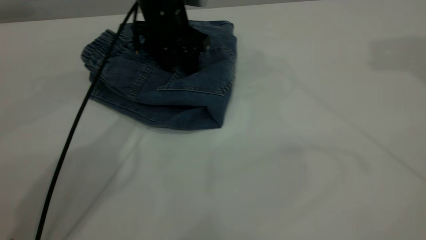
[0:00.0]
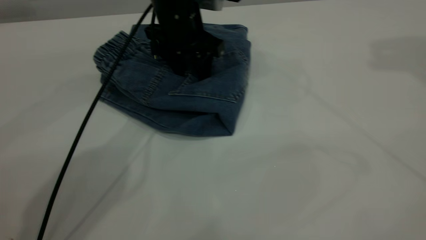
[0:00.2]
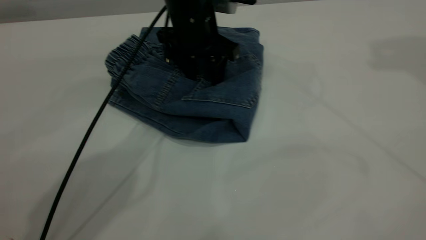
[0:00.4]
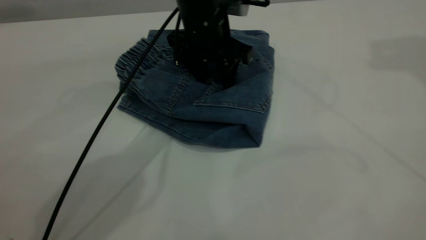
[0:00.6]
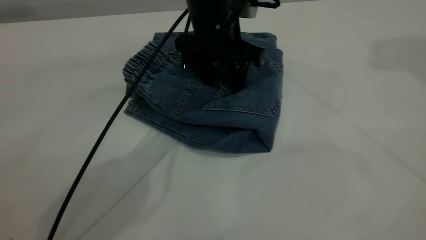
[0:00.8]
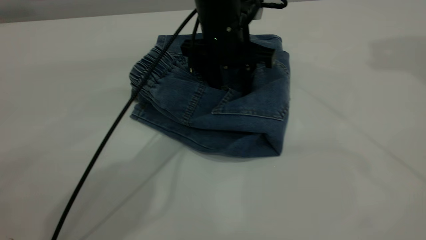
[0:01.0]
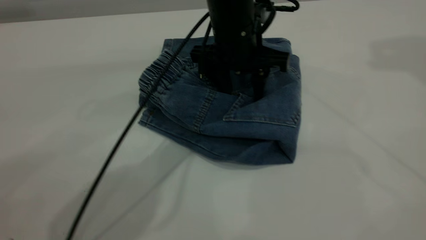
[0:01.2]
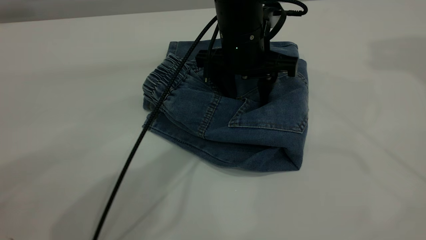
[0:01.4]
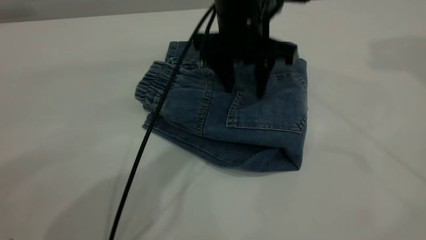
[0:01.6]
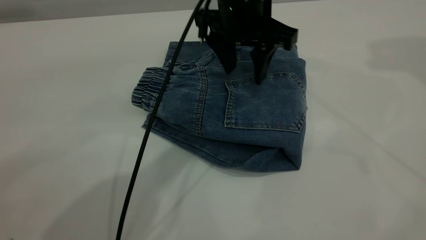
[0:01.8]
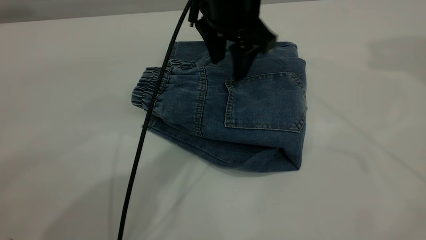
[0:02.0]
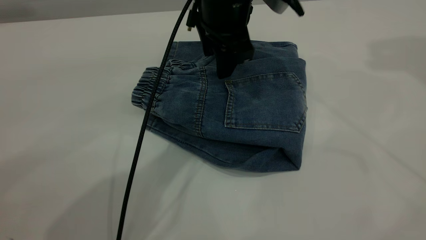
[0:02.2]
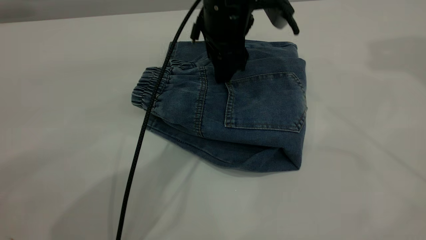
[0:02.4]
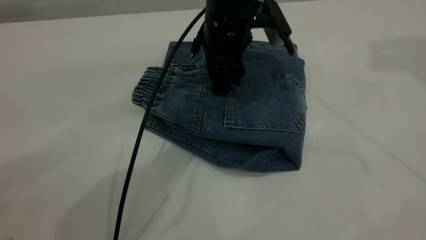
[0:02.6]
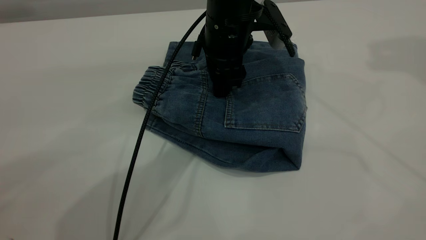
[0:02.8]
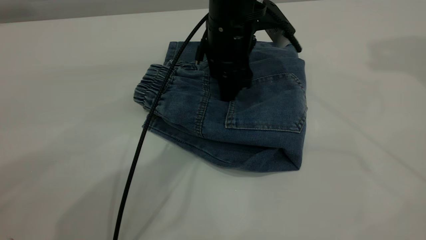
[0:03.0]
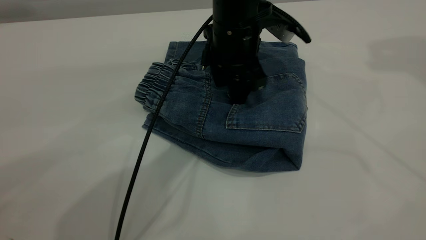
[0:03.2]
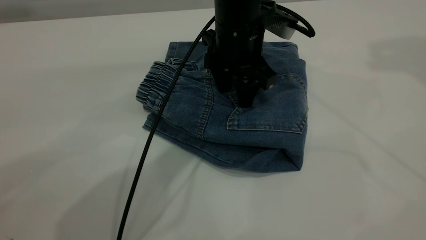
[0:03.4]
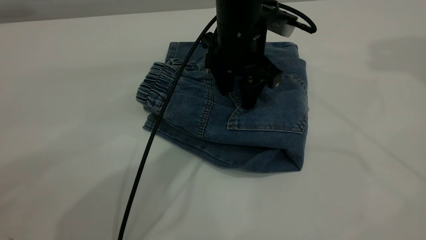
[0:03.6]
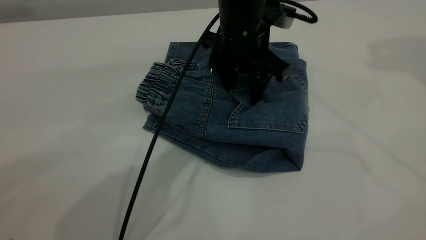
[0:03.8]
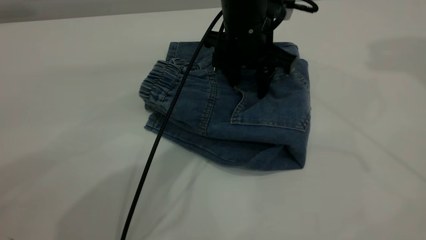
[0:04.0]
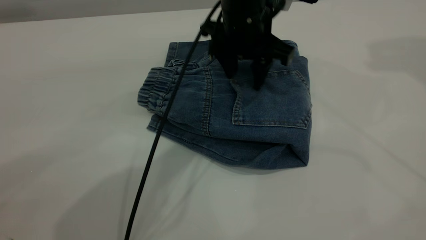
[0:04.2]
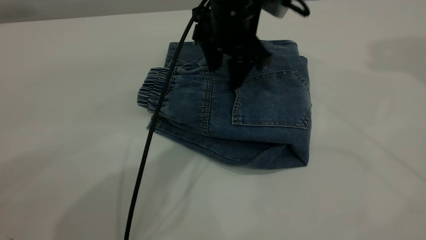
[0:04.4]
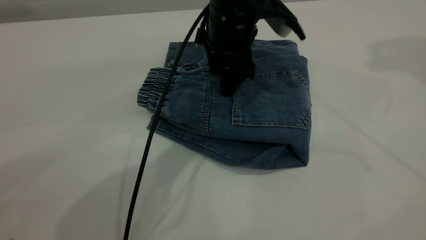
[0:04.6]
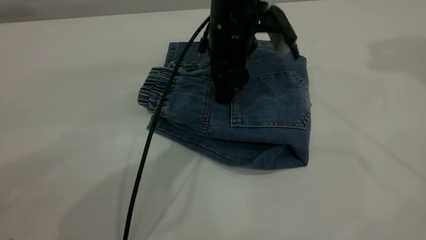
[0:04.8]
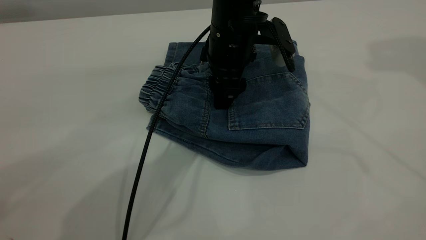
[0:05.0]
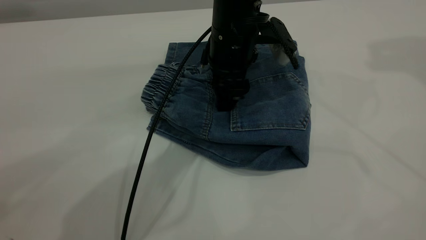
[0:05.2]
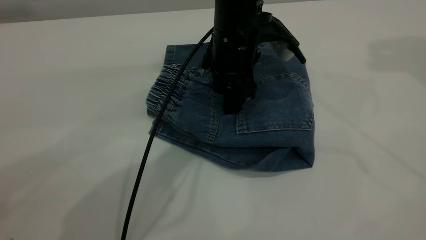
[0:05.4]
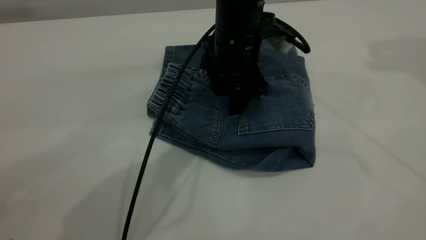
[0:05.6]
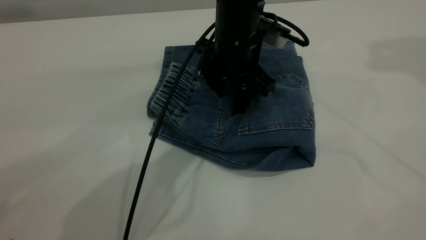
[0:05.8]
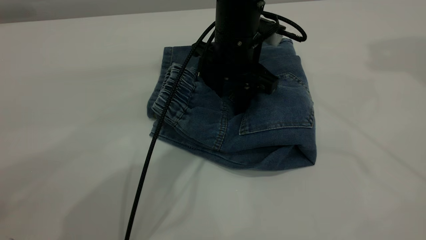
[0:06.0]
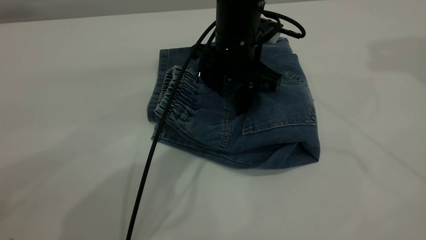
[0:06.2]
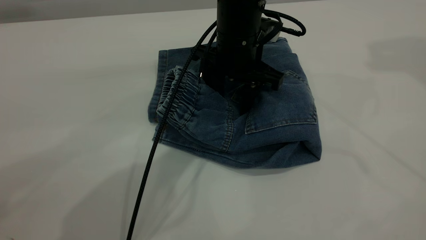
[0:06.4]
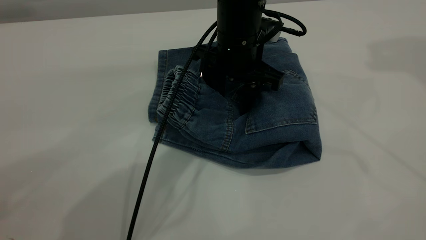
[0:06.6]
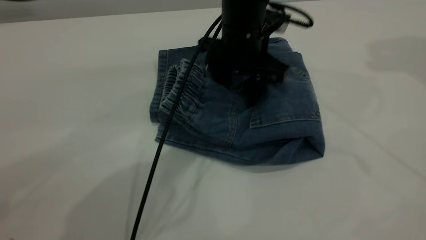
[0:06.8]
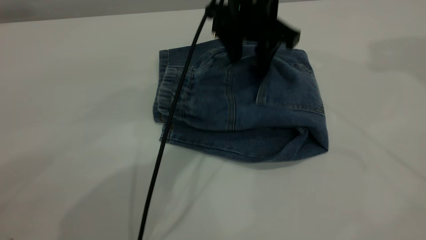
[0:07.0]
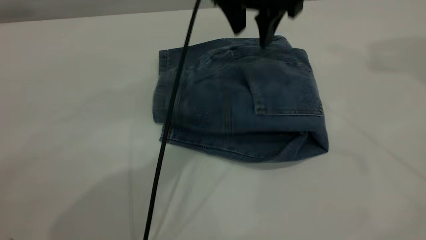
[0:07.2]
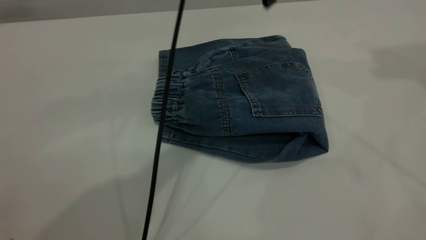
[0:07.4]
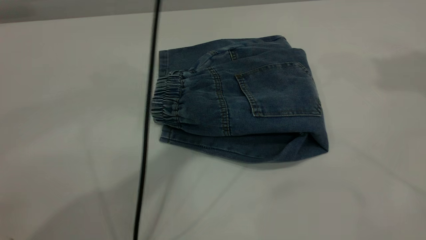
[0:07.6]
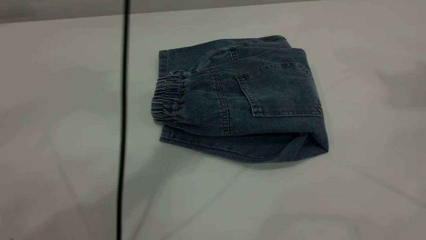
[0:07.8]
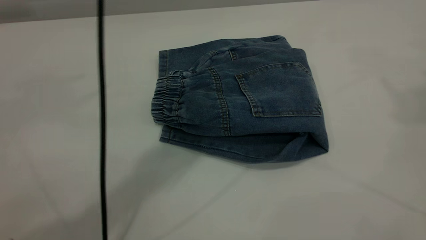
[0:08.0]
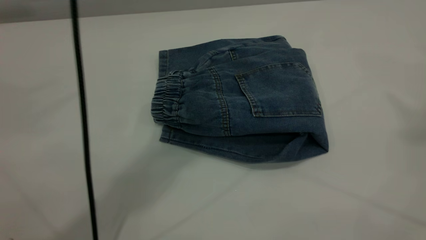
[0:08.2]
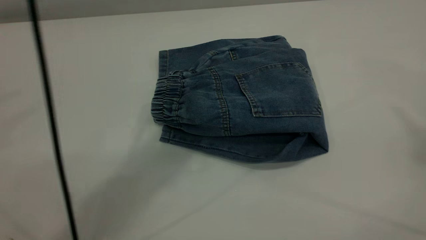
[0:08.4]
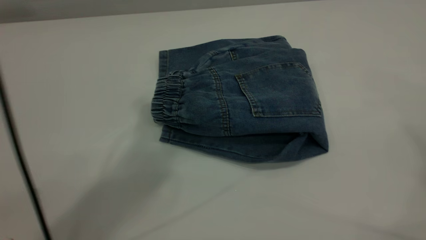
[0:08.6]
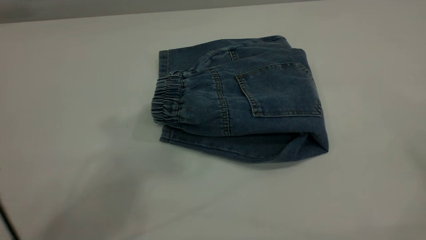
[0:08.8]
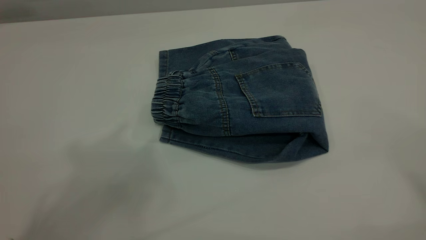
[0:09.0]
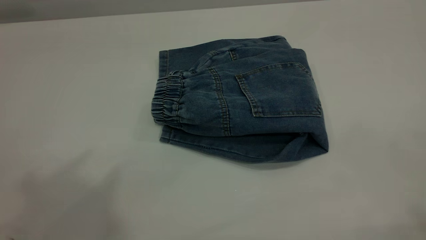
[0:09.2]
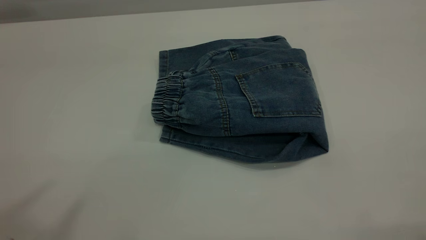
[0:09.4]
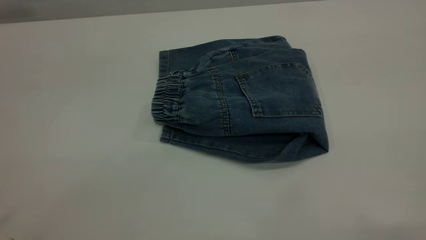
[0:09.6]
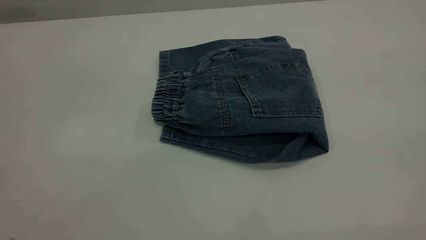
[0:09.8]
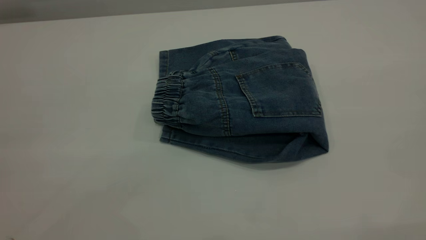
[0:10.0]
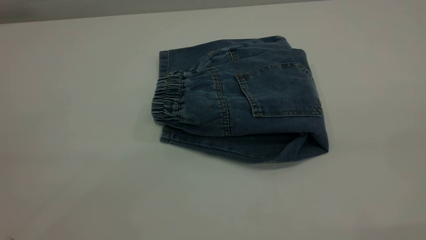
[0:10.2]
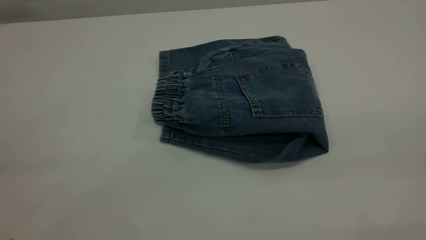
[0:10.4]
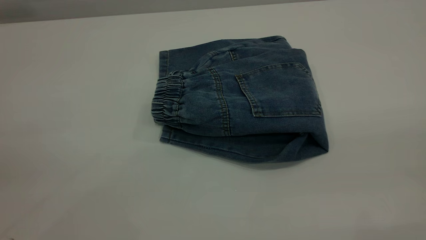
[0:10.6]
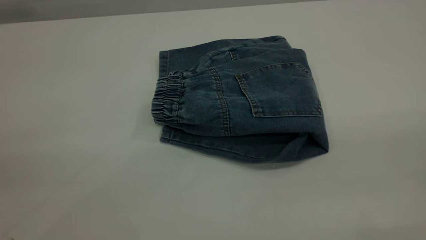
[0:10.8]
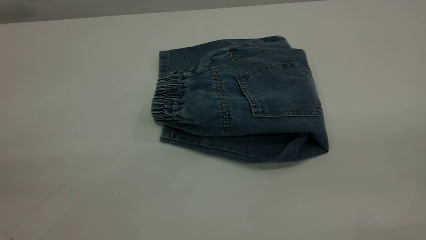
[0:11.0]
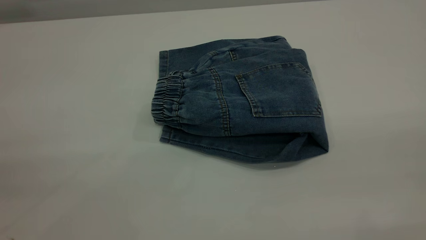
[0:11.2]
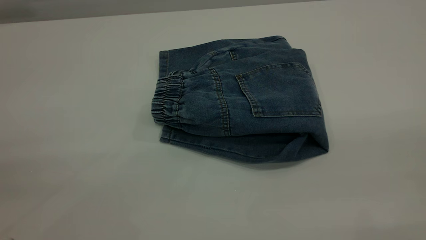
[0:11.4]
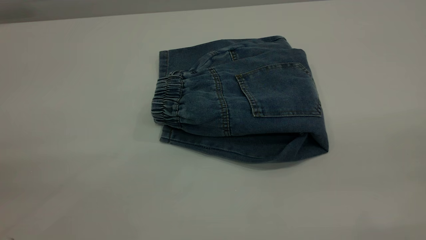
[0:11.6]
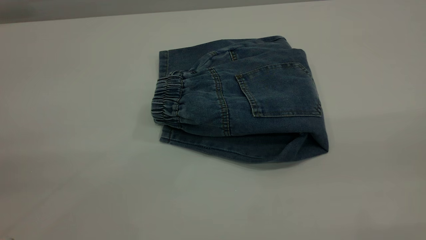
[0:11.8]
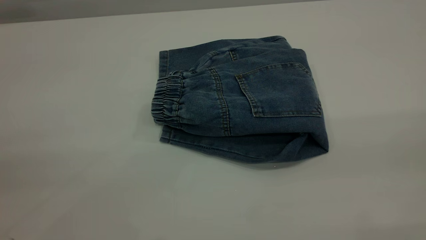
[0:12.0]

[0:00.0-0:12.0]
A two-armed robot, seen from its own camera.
0:00.0 to 0:01.6: The left gripper travels to the right and backward by approximately 15 cm.
0:06.0 to 0:07.6: The left gripper goes some 25 cm upward, while the right gripper goes about 10 cm backward and upward.
0:07.6 to 0:09.0: The left gripper is displaced upward, backward and to the left by about 35 cm, while the right gripper is displaced backward by roughly 20 cm.

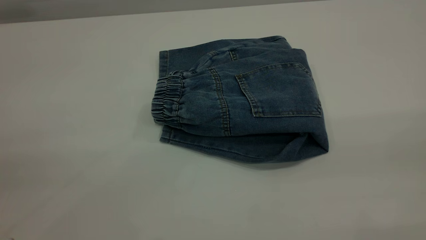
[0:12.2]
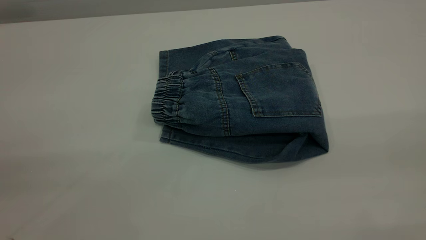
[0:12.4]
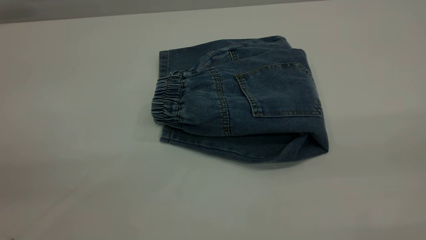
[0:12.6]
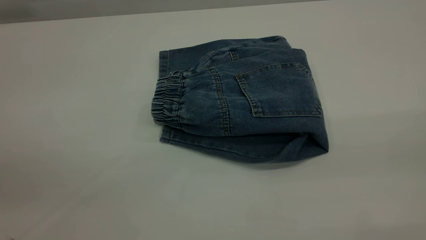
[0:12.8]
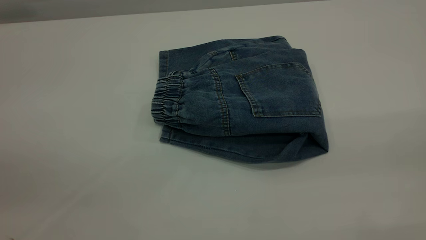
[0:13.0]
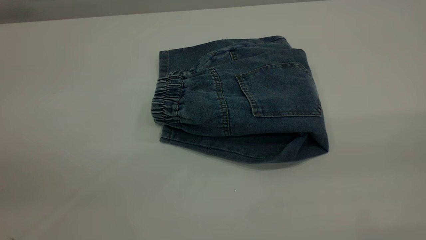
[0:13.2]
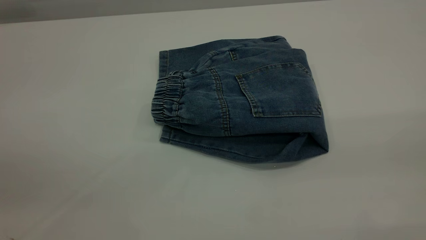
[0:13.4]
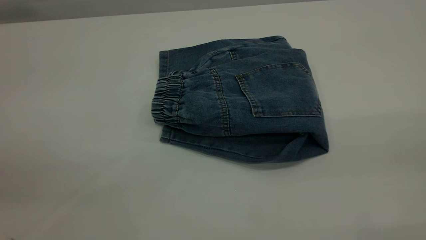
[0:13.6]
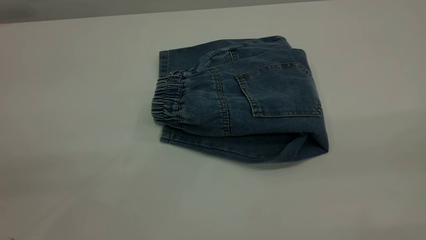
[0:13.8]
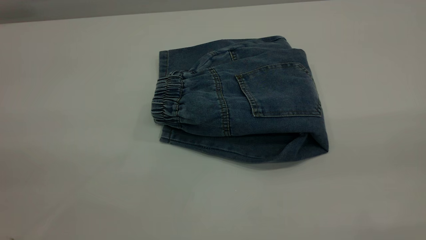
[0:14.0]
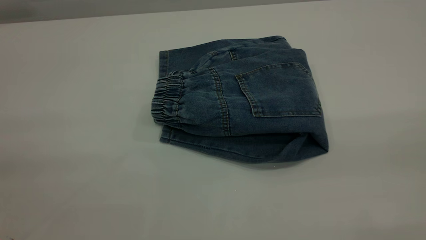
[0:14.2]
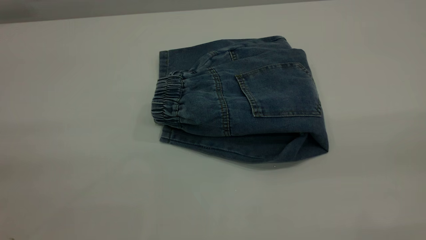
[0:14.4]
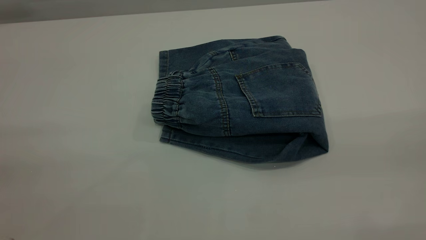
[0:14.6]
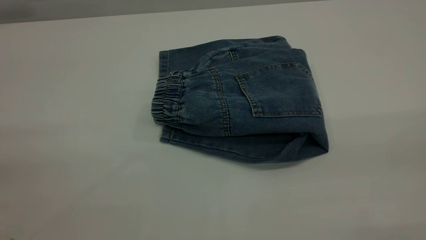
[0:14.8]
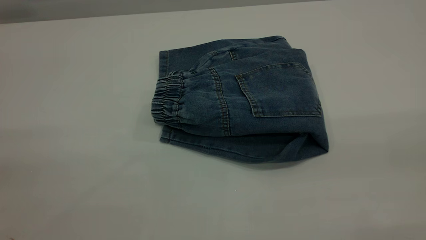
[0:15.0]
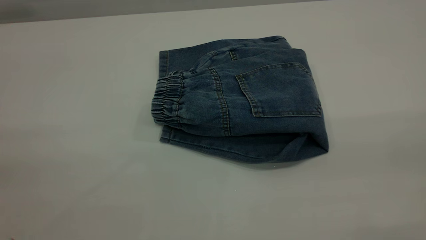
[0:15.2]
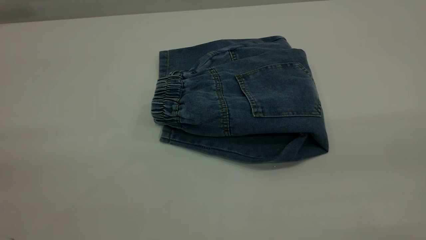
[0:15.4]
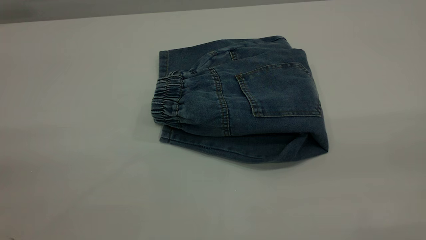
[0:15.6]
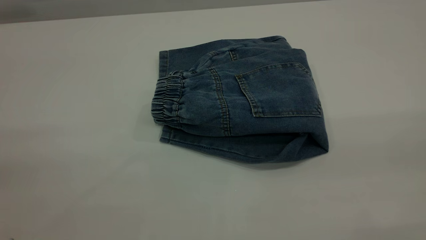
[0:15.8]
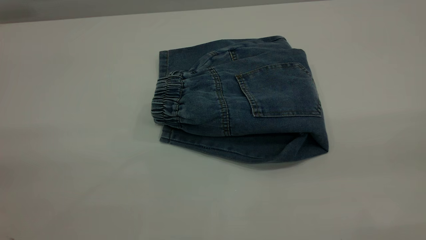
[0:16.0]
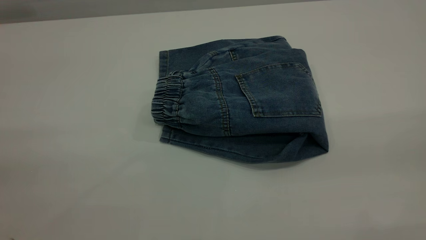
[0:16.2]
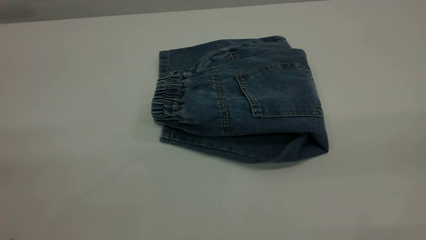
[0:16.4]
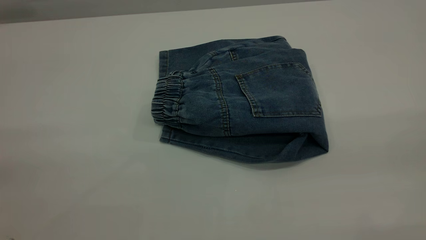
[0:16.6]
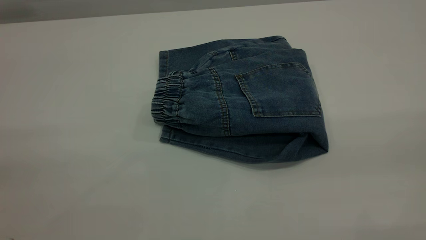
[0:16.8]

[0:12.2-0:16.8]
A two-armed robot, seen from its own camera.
0:15.2 to 0:16.8: The two grippers keep their place.
